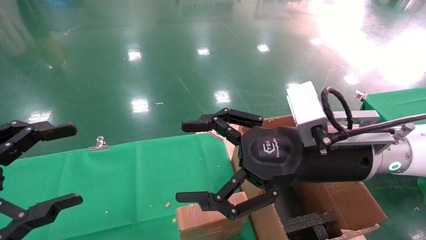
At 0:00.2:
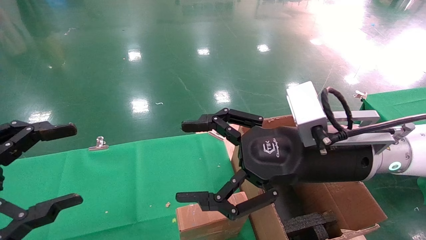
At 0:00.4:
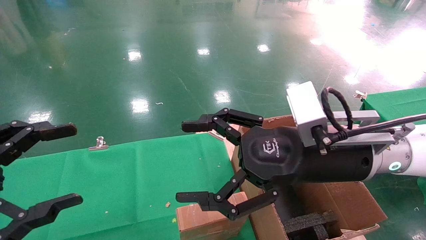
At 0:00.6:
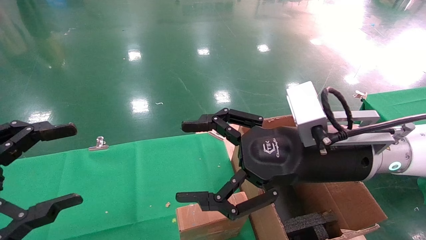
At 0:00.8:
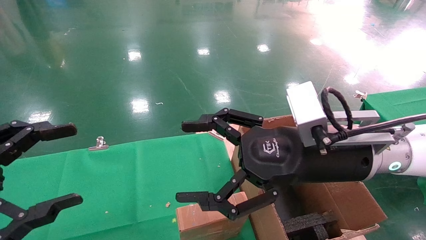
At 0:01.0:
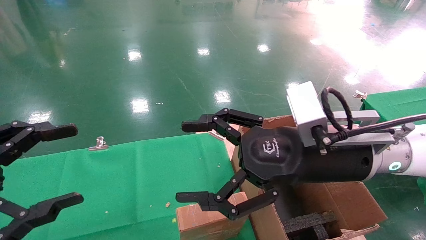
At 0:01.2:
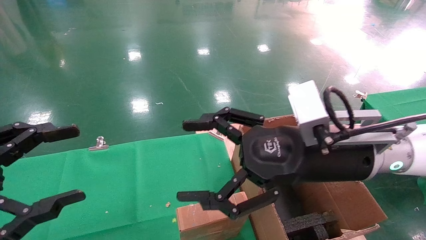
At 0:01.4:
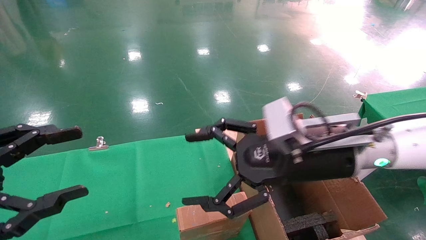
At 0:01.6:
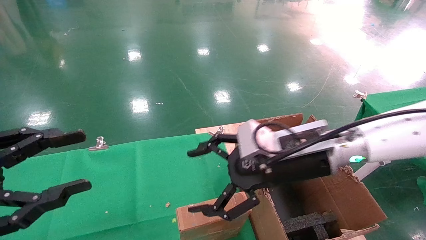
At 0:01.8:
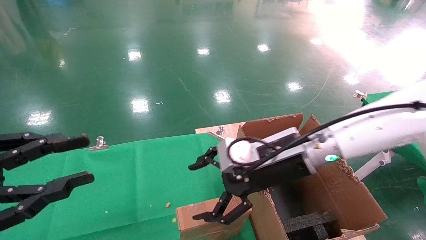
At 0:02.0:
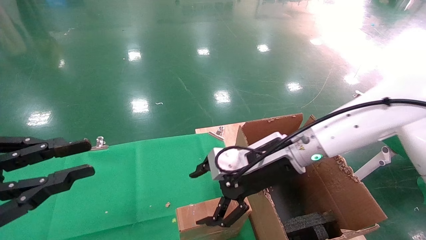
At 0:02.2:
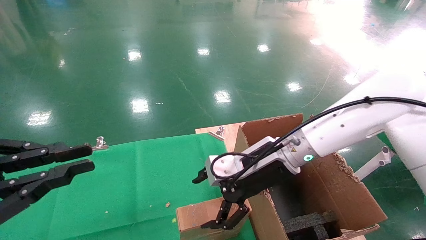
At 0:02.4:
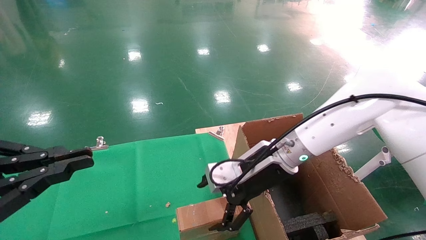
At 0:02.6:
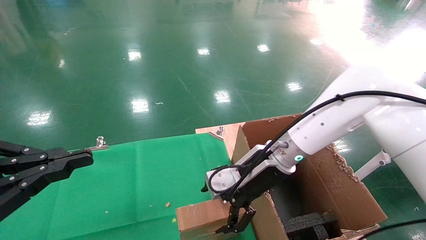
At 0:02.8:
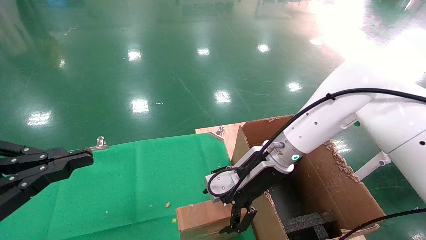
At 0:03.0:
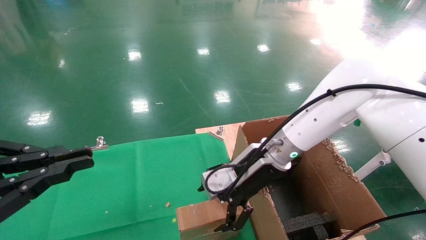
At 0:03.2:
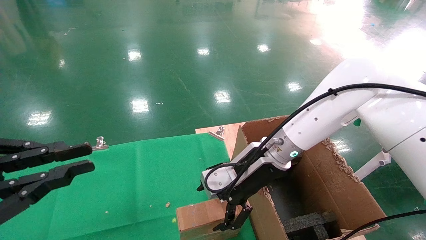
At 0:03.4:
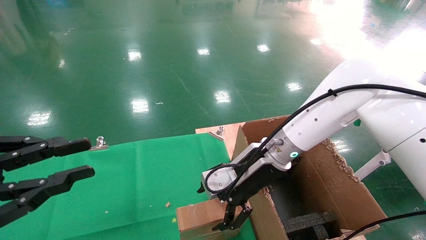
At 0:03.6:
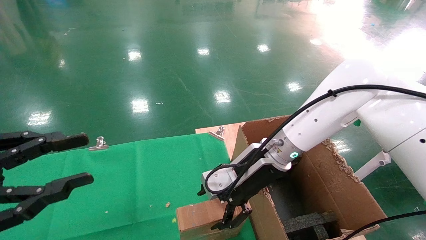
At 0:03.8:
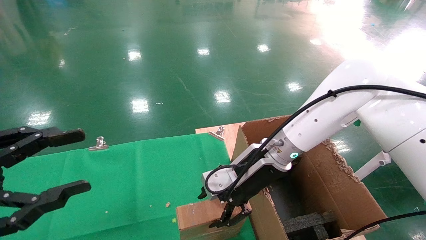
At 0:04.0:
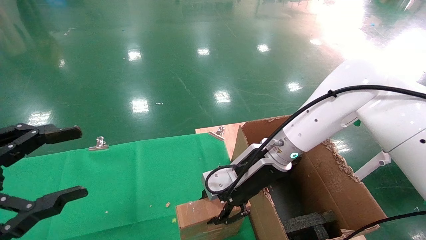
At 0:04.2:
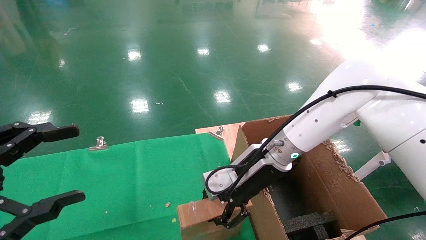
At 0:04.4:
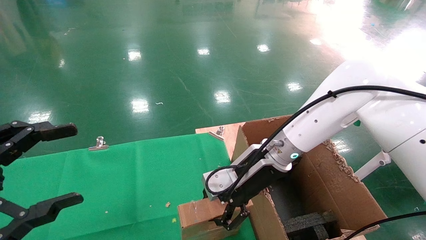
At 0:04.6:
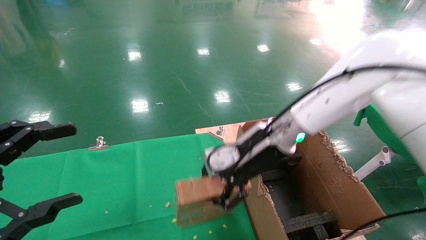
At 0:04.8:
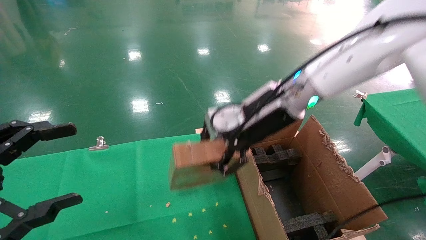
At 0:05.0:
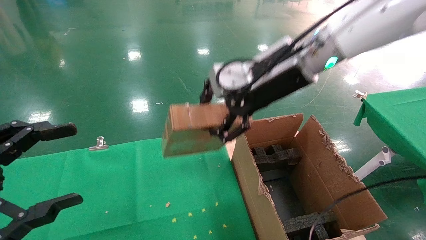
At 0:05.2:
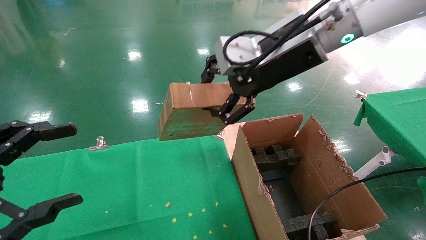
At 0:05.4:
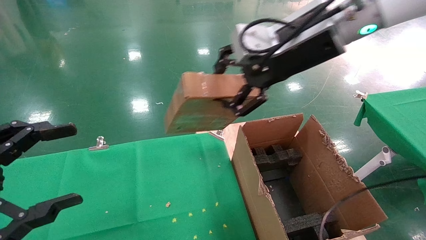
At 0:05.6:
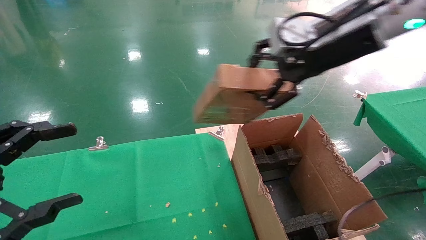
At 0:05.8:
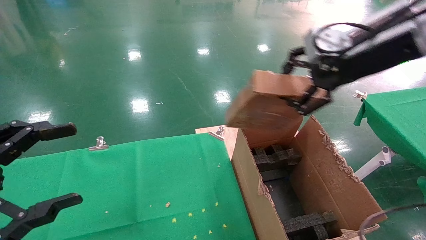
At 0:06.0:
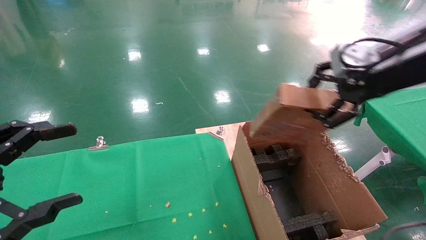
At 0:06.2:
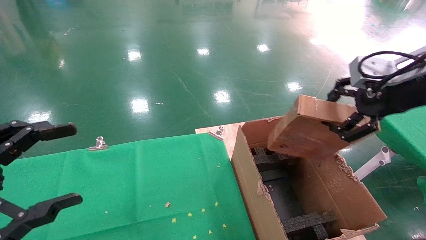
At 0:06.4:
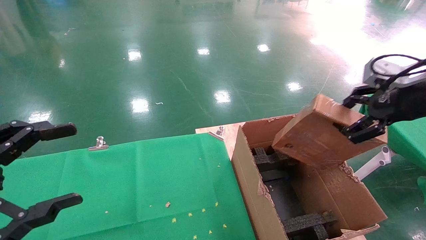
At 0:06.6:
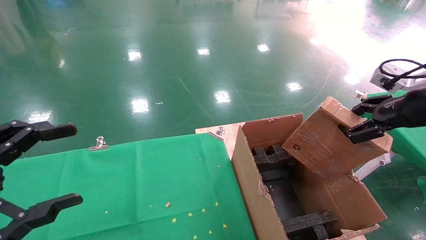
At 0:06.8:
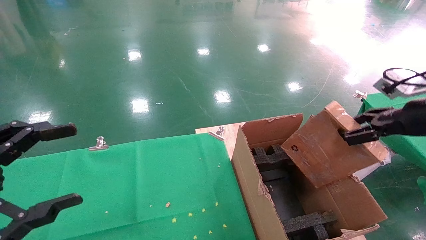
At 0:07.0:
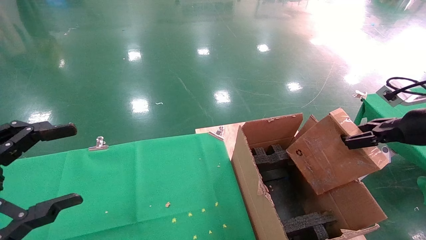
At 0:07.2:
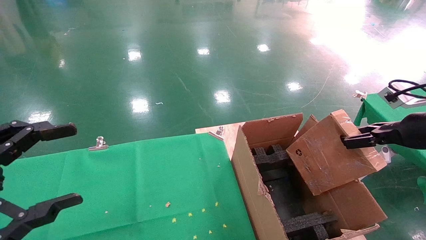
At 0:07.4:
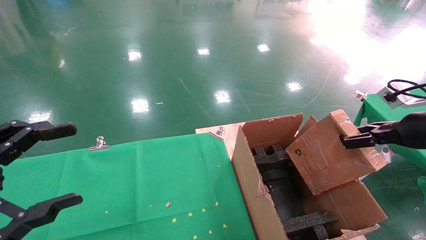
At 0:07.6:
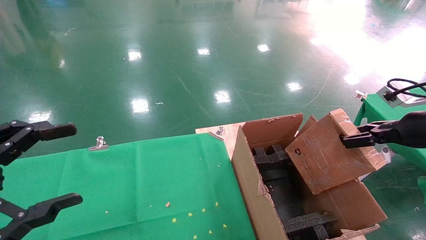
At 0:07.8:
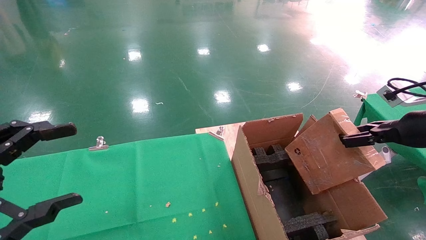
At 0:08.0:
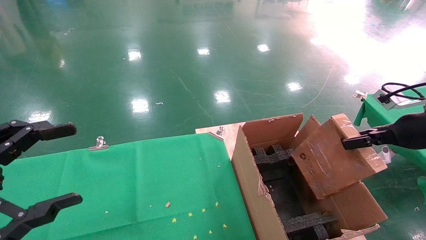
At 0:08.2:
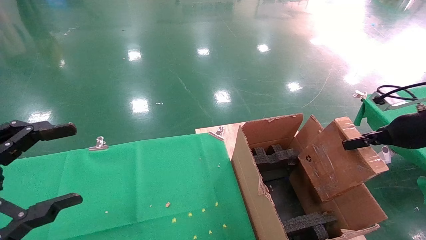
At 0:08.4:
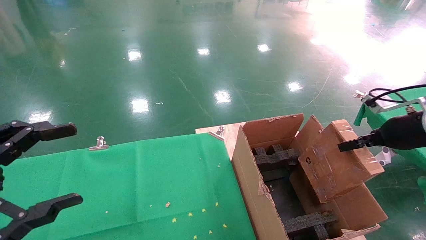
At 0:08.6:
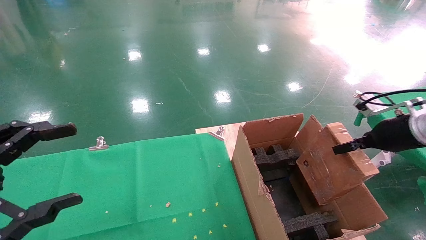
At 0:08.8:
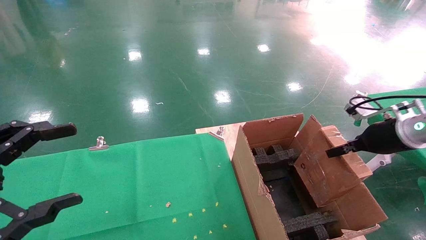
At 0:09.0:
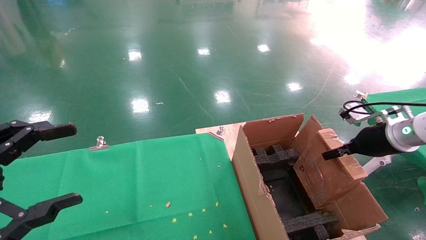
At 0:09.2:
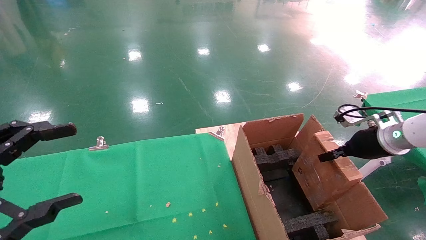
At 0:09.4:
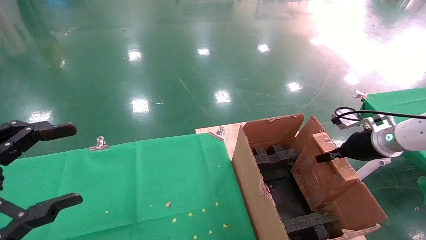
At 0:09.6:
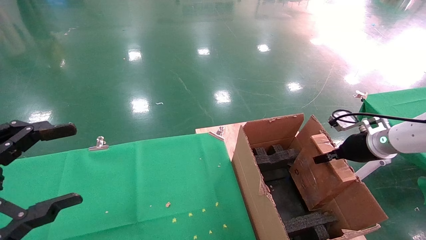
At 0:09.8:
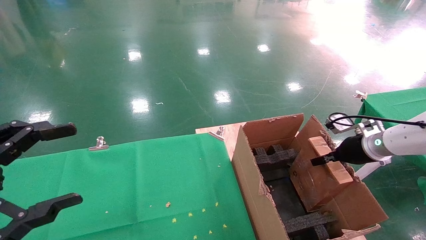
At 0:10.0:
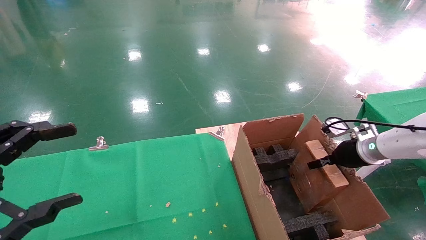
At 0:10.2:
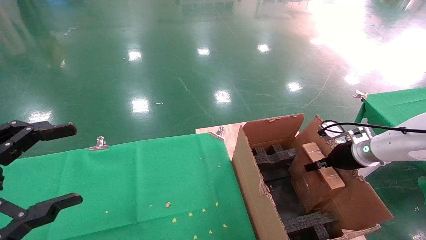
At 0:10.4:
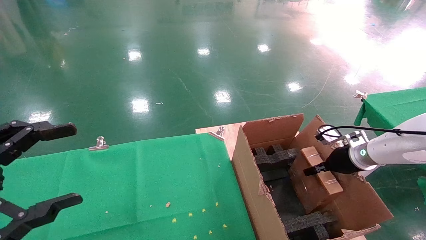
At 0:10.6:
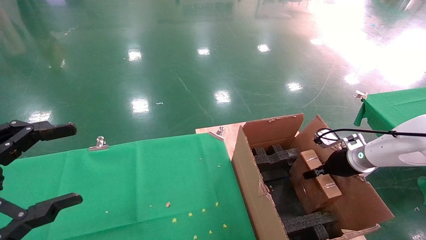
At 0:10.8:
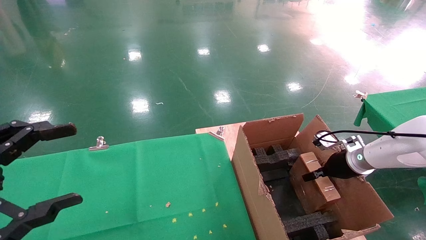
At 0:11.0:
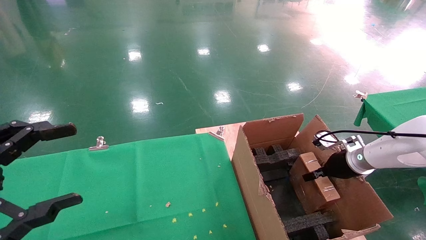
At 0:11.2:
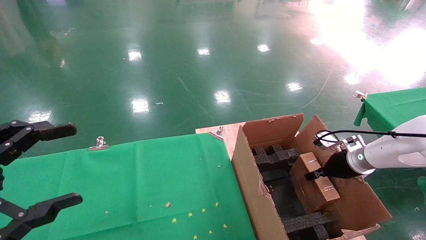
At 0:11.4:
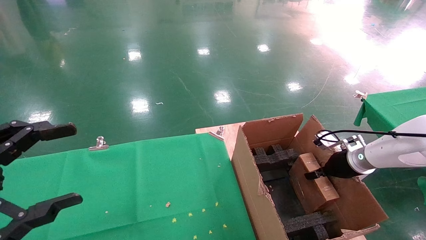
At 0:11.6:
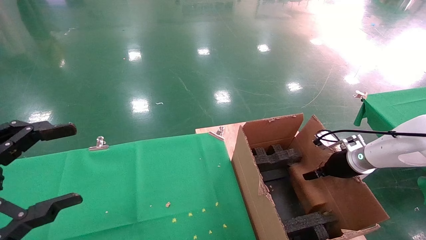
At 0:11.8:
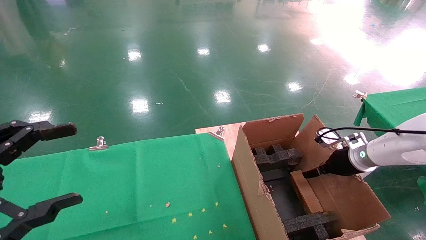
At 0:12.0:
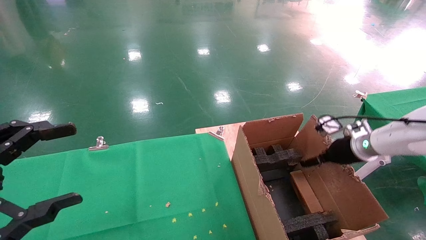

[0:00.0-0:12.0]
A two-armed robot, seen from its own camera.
Task of the whole recording: using a robotic arm to pick up a cardboard box and palace it the carton.
Step, 0:01.4 to 0:04.2: Pick up the mouse and the power cord paper box.
0:00.0 to 0:01.6: The right gripper shifts by some 5 cm.
0:01.6 to 0:03.0: The left gripper closes, while the right gripper moves forward, roughly 10 cm.
0:03.0 to 0:04.4: The left gripper opens its fingers; the right gripper closes its fingers.
0:04.4 to 0:06.0: The right gripper heads to the right, upward and backward, covering approximately 30 cm.
0:06.0 to 0:07.6: The right gripper travels downward and to the right by roughly 20 cm.
0:07.6 to 0:09.0: The right gripper heads forward and downward, covering about 10 cm.
0:09.0 to 0:10.4: The right gripper goes roughly 10 cm downward and forward.
0:10.4 to 0:12.0: The right gripper opens up.

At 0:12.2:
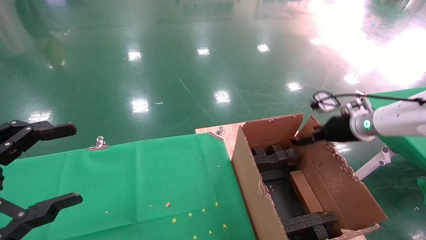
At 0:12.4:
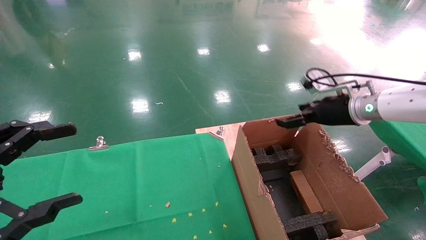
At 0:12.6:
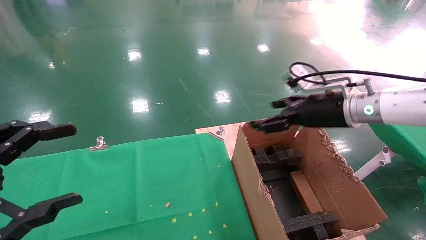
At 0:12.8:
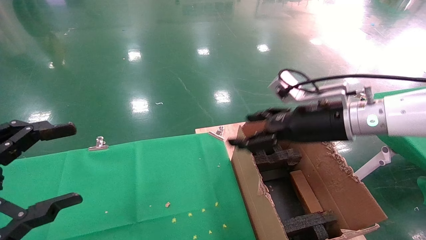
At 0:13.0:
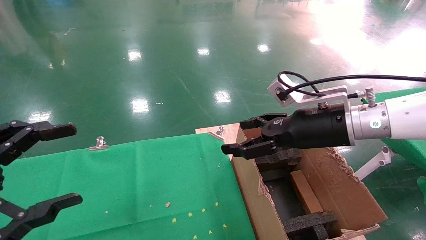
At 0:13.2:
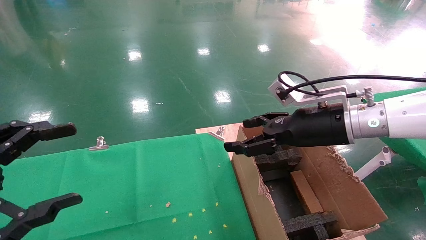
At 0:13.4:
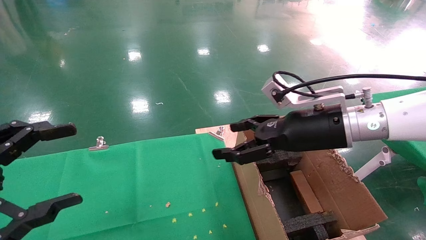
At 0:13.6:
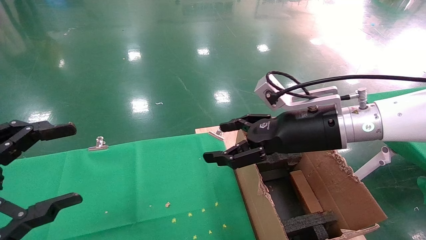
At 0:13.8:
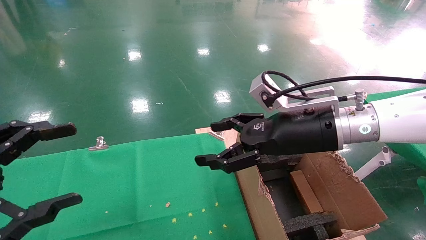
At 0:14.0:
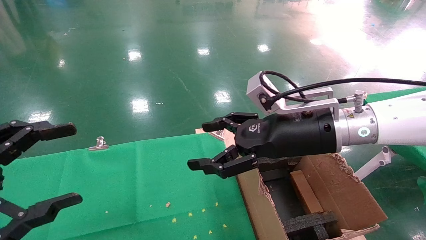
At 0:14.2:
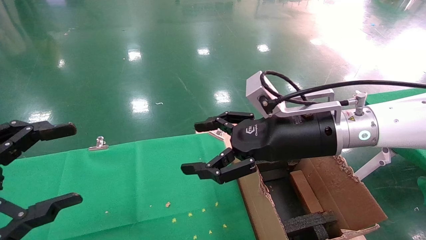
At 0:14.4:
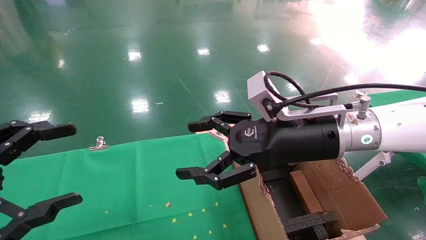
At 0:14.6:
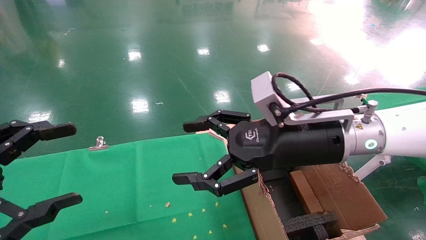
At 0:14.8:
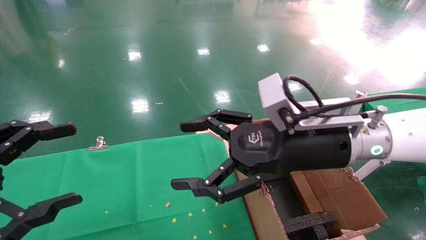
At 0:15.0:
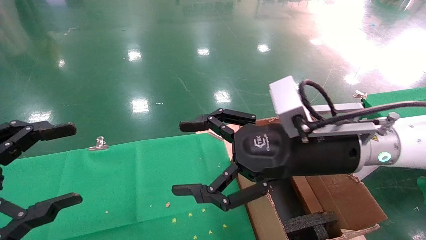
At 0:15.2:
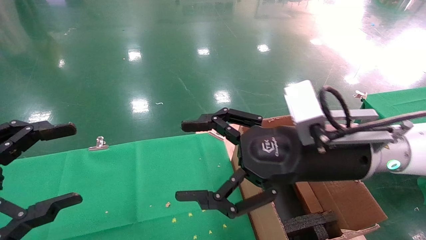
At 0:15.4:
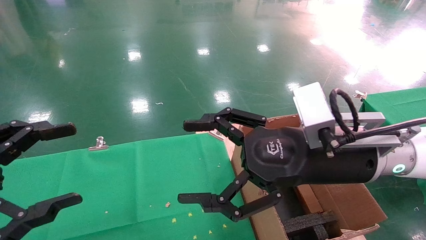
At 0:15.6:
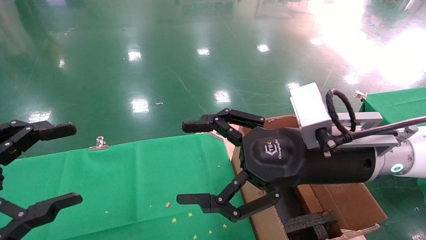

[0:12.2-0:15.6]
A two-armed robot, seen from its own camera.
Task of the whole recording: using a robotic arm to pick up a cardboard box and palace it the carton.
0:12.2 to 0:13.8: The right gripper shifts some 20 cm to the left and backward.
0:13.8 to 0:15.6: The right gripper shifts some 5 cm backward.
